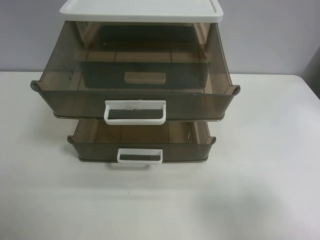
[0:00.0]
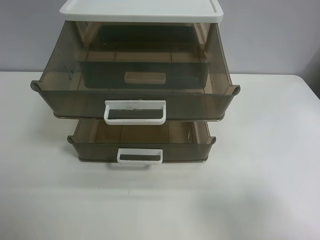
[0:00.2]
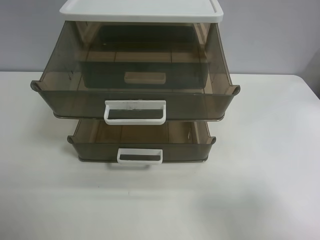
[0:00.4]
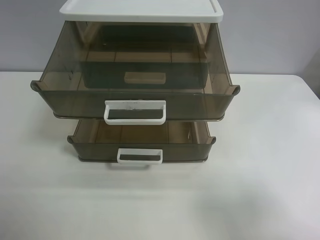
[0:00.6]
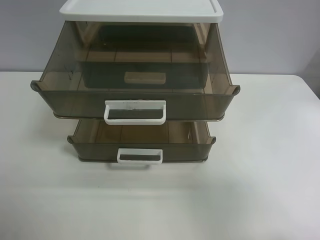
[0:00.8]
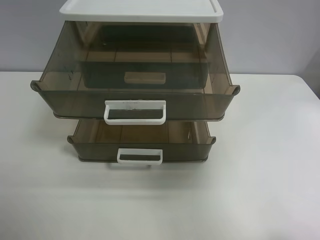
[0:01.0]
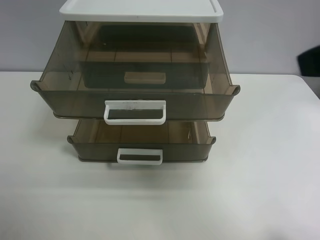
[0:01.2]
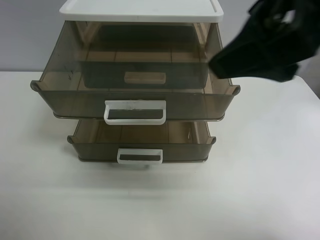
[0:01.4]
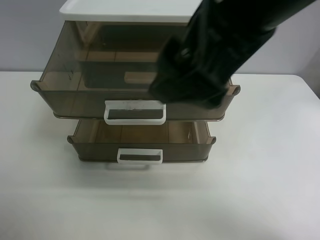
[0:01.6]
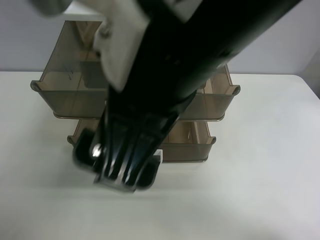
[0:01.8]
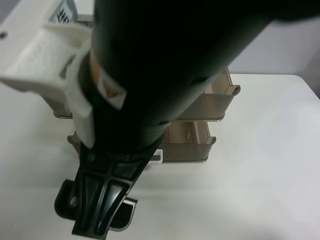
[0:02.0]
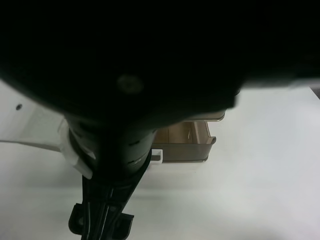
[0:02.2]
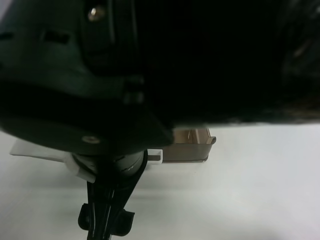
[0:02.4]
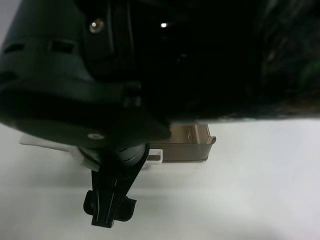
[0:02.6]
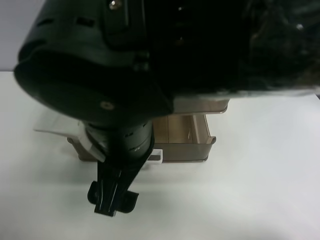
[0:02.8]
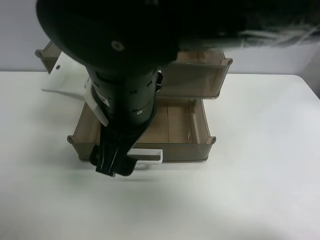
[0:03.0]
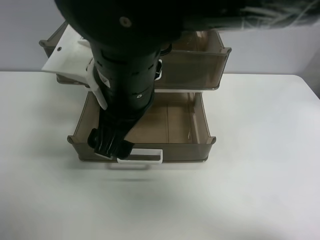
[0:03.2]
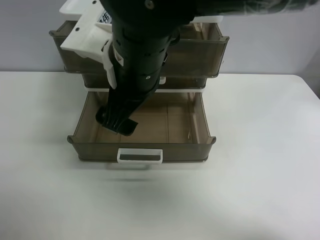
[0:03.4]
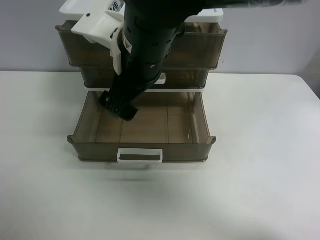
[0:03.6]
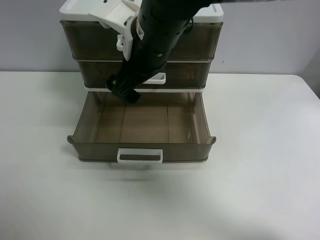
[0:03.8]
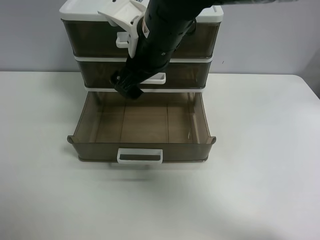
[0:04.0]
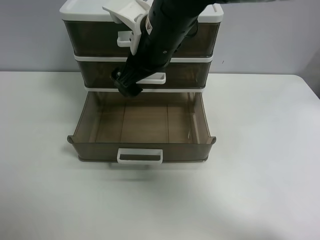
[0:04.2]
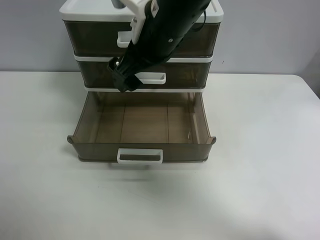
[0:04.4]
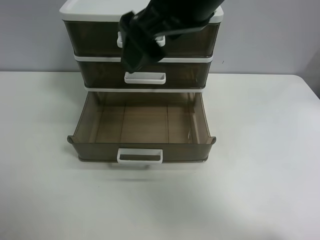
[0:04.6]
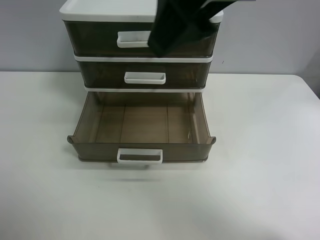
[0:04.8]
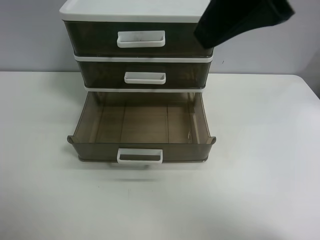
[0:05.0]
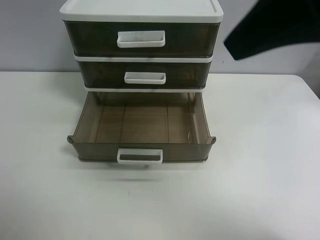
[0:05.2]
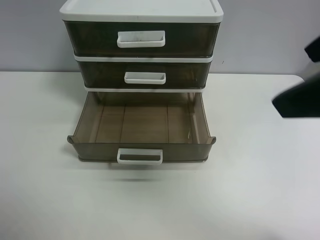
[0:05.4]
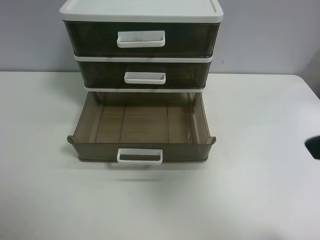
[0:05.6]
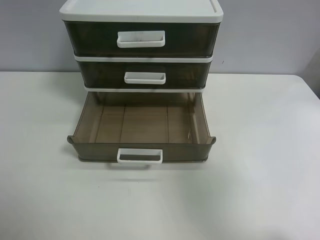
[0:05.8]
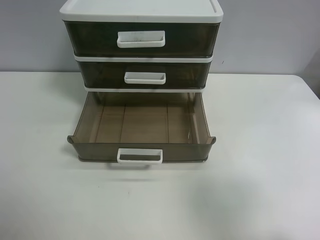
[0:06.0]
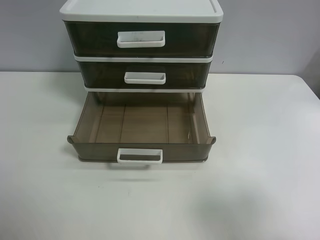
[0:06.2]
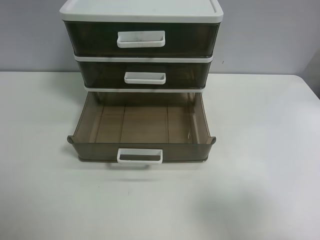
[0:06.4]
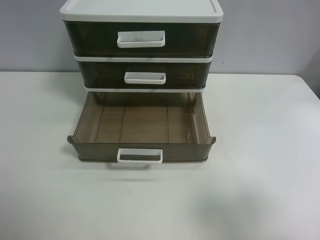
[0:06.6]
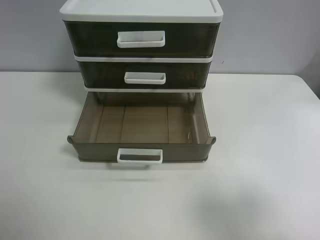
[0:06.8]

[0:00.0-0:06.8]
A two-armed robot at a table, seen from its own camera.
Task of the whole recording: close the top drawer.
Step, 0:00.0 to 0:02.6: Use the right gripper to touch the topmost layer of the storage cabinet.
Step, 0:02.8 to 0:04.2: Push the top drawer closed.
0:00.0 to 0:01.4: The right gripper travels to the left, forward and upward by roughly 25 cm.
0:01.4 to 0:02.8: The right gripper shifts some 20 cm to the left and downward.
0:02.8 to 0:04.0: The right gripper heads forward, covering about 15 cm.
0:04.0 to 0:05.4: The right gripper moves to the right, backward and upward, approximately 30 cm.
0:05.4 to 0:06.8: The right gripper travels downward, backward and to the right by roughly 20 cm.

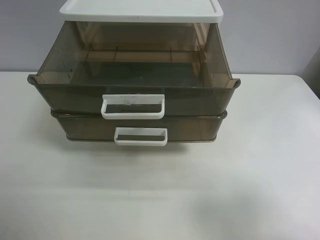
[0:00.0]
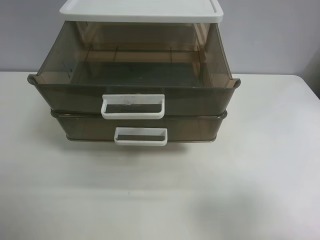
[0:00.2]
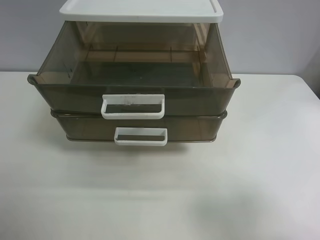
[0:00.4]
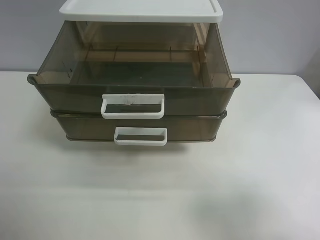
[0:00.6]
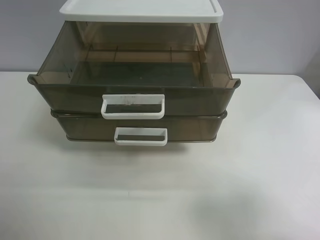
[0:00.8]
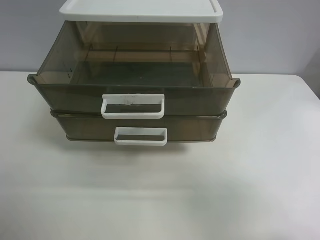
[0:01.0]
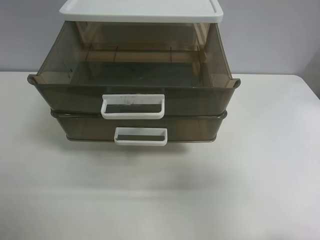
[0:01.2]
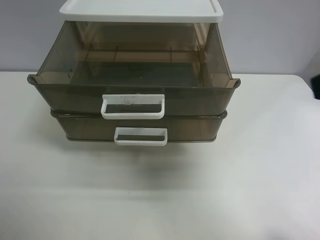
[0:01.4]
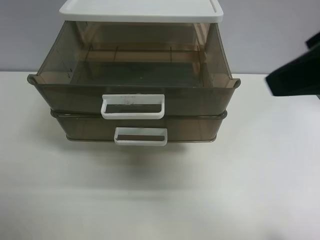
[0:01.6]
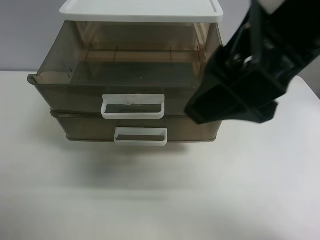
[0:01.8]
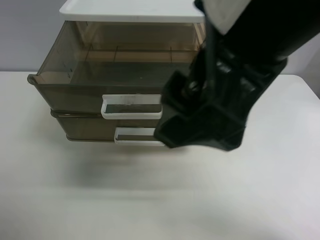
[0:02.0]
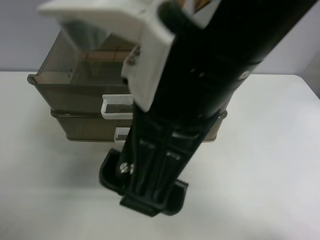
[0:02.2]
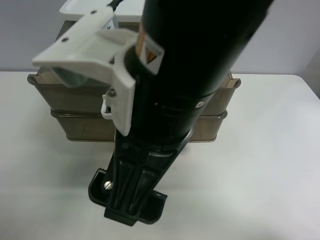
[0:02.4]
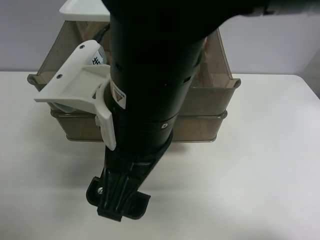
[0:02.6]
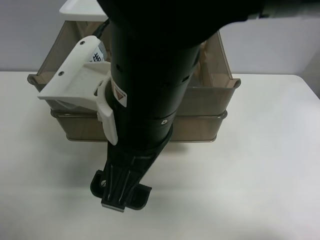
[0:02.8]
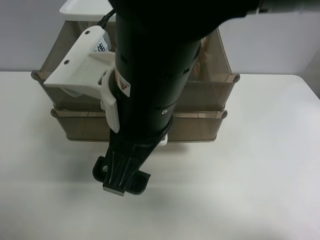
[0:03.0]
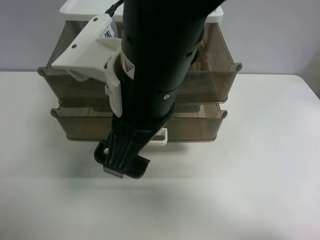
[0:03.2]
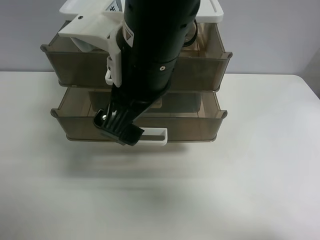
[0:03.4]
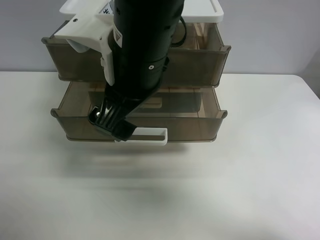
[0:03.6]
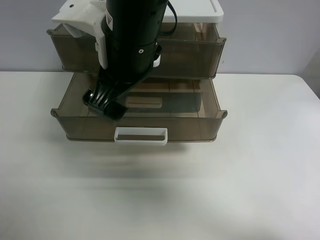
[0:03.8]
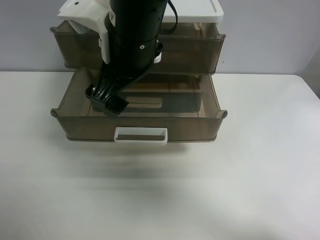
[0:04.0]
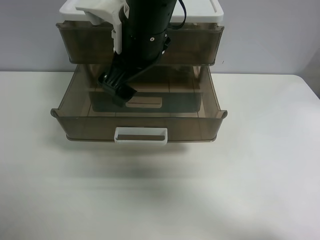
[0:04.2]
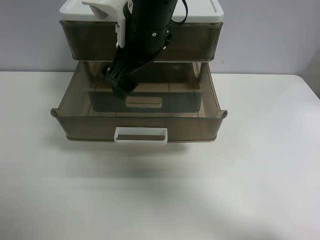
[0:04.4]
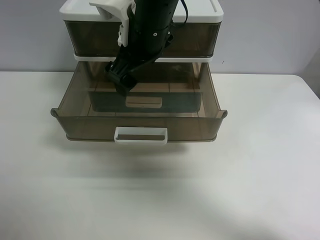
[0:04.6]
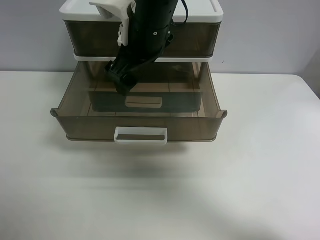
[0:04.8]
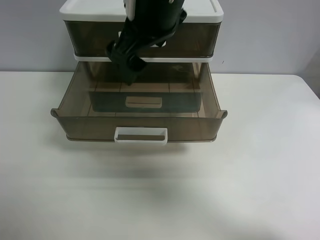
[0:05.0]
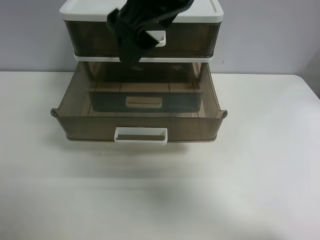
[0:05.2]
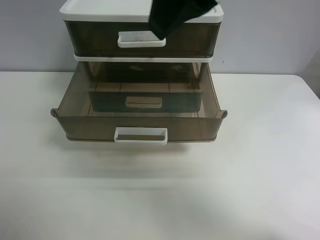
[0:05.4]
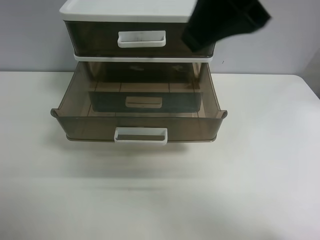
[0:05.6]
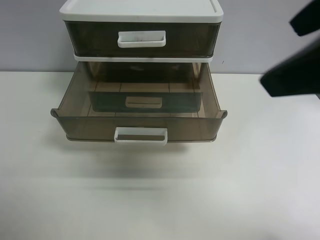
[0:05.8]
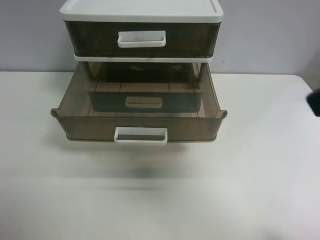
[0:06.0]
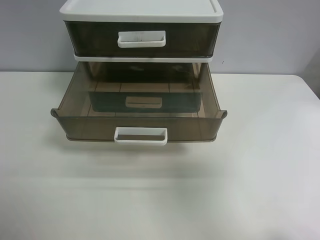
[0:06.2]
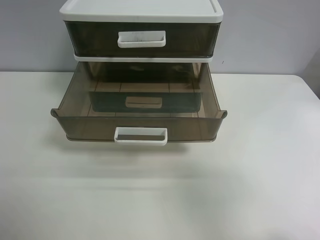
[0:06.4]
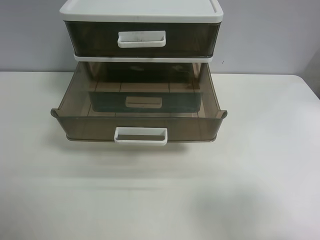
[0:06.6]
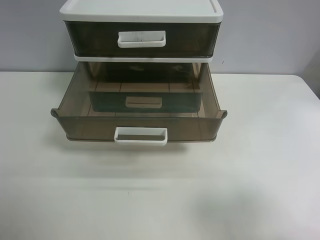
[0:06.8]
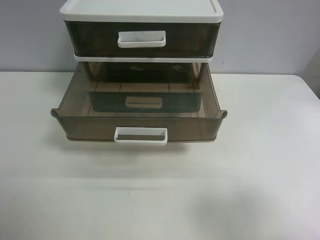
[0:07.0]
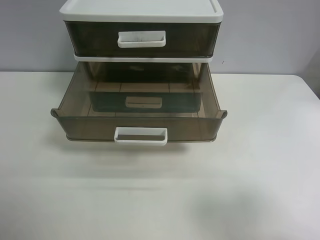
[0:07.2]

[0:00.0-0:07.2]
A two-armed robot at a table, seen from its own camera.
Task of the whole recording: close the top drawer.
Step, 0:00.0 to 0:02.8: Use the right gripper to touch the topmost layer of the storage cabinet.
Step, 0:03.0 to 0:04.8: Push the top drawer closed.
0:00.0 to 0:01.4: The right gripper goes approximately 15 cm upward, forward and to the left.
0:01.4 to 0:02.8: The right gripper goes about 25 cm to the left.
0:02.8 to 0:04.4: The right gripper heads forward, covering roughly 15 cm.
0:04.4 to 0:05.8: The right gripper goes approximately 30 cm to the right, backward and upward.
0:05.8 to 0:07.2: The right gripper is displaced downward, backward and to the right by some 20 cm.
